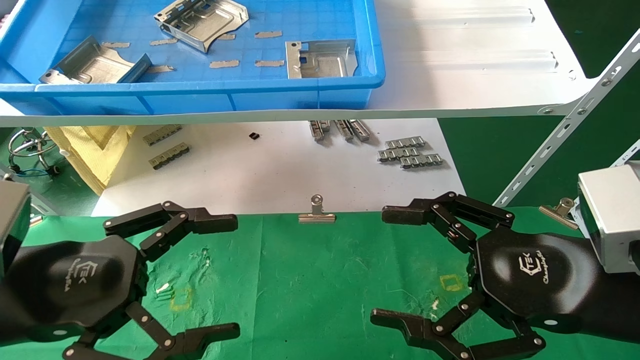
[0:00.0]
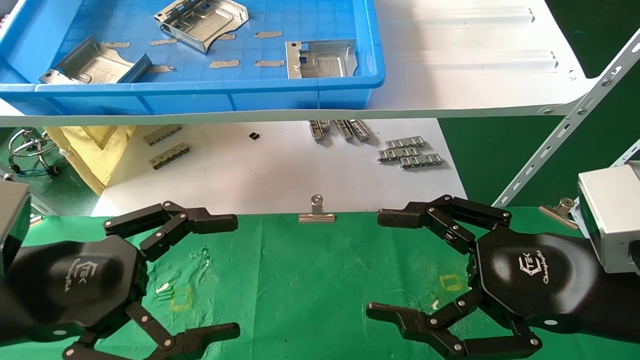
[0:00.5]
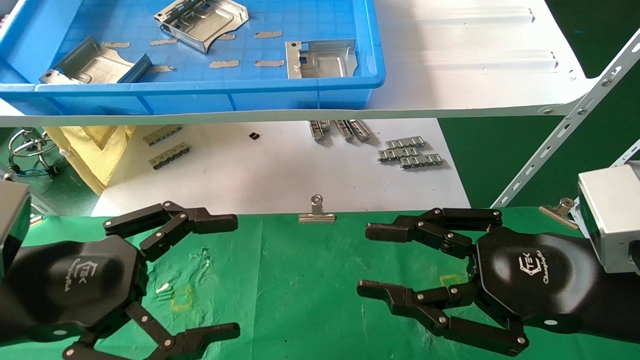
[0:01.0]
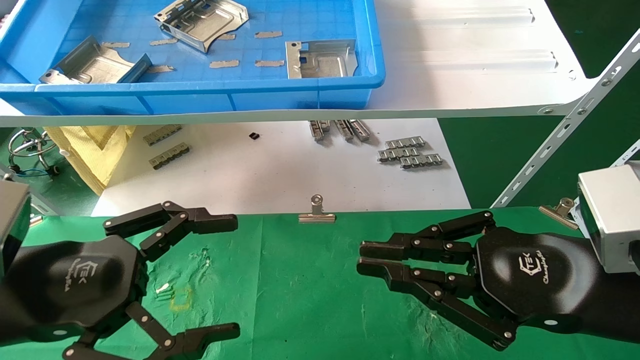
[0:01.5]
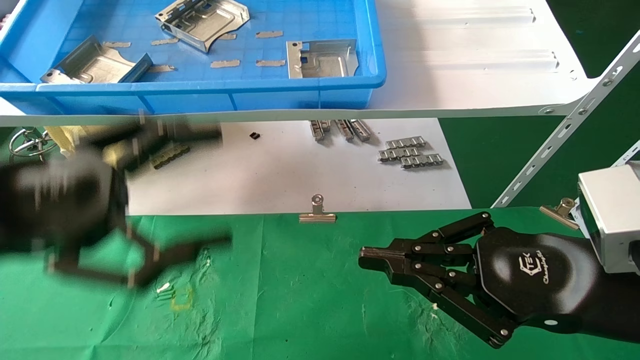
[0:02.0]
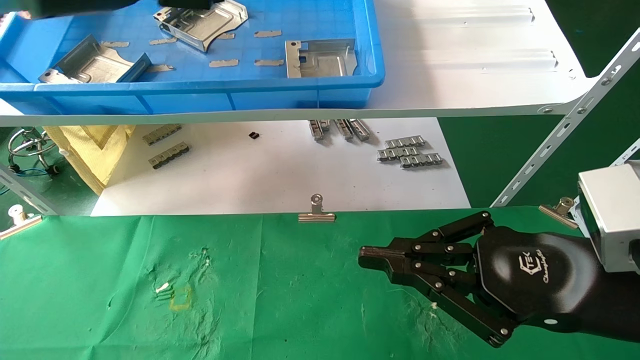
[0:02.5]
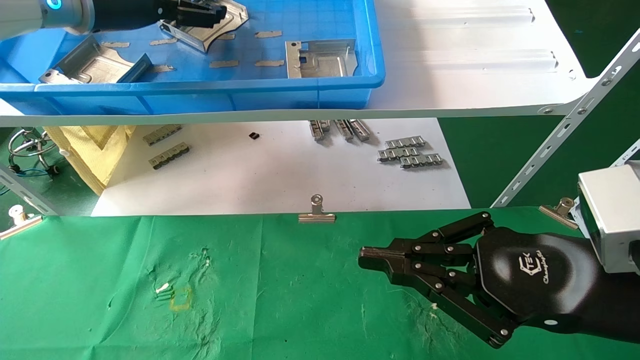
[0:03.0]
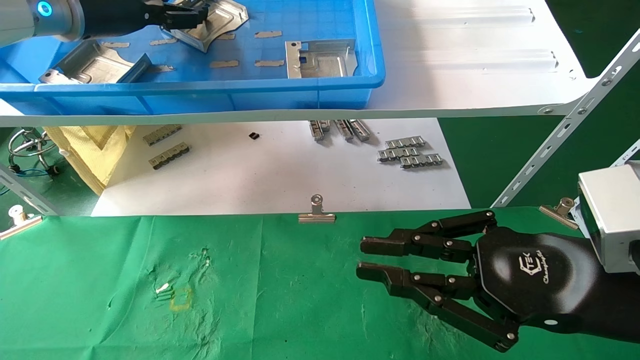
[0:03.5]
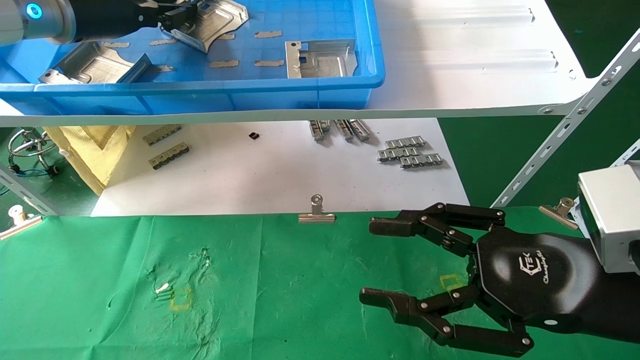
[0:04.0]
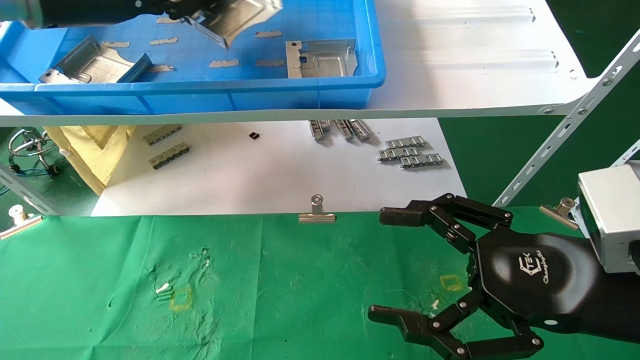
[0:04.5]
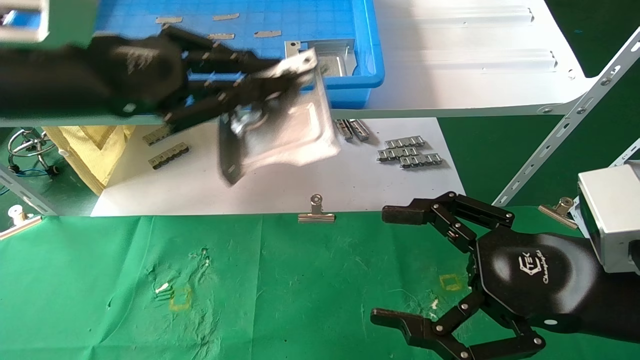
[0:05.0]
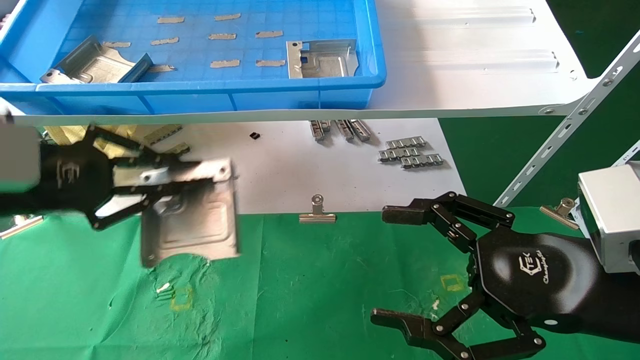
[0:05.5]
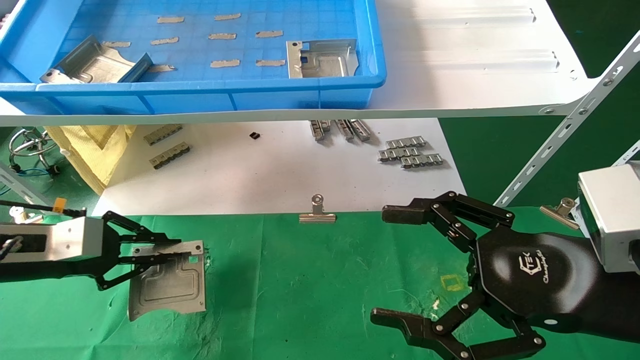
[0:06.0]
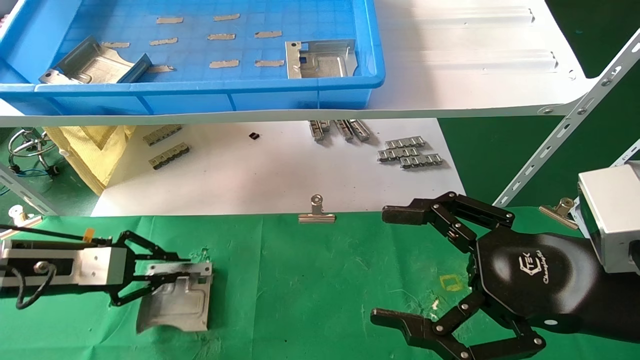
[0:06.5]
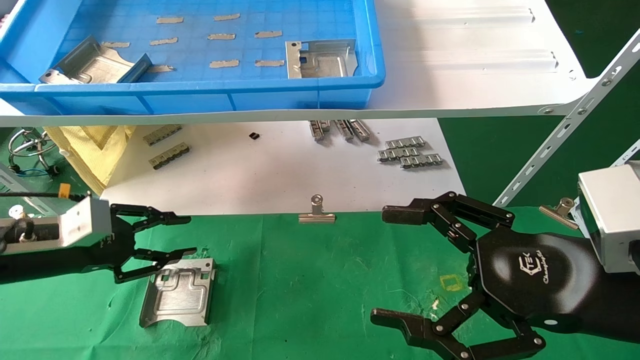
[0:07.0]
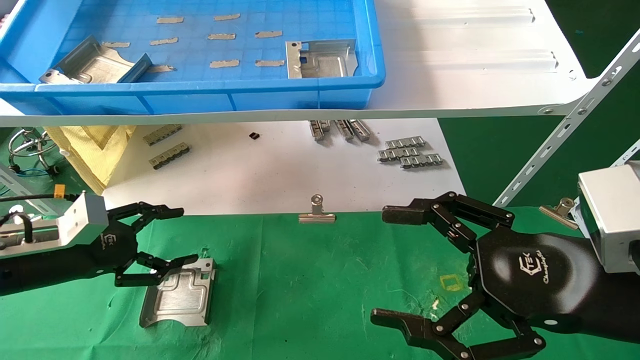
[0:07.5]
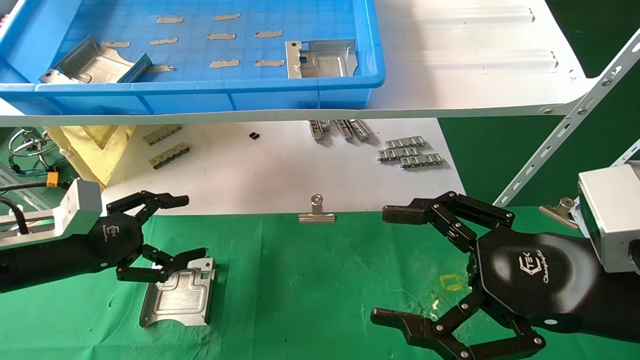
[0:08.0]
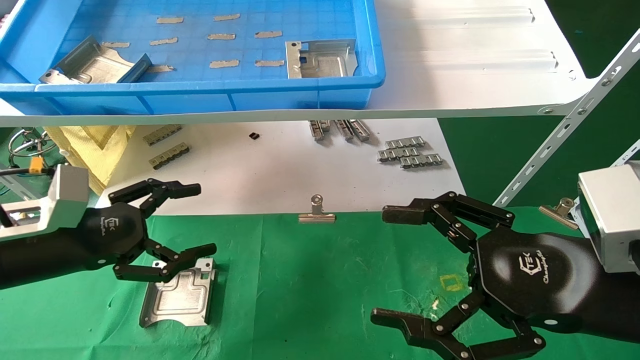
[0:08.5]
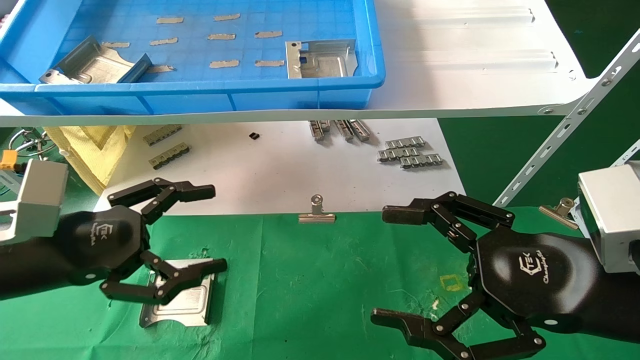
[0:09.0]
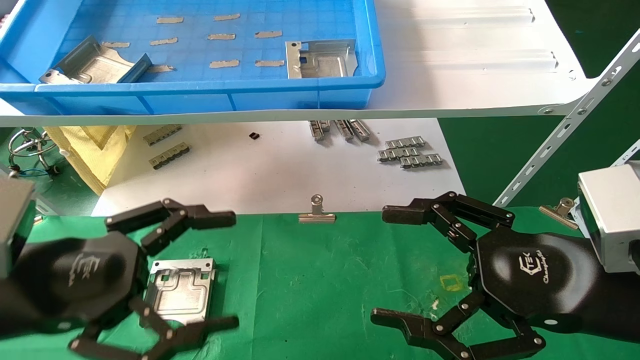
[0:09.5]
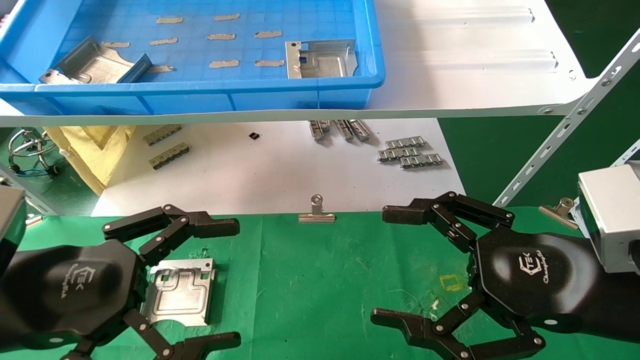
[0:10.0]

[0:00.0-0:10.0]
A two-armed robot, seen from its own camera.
Task of the whole recording: use the mechanical arm to pick up the parts and place them on the table.
Step, 0:02.0 to 0:04.0: Pick up the hard drive bracket from the feeding area.
Step, 0:04.5 to 0:06.5: Place the hard drive bracket into the box.
0:00.0 to 0:02.0: The left gripper goes approximately 10 cm upward. Meanwhile the right gripper closes.
0:02.0 to 0:04.0: The left gripper heads forward and upward, covering about 25 cm, and closes. Meanwhile the right gripper opens.
0:04.0 to 0:06.0: The right gripper opens up; the left gripper is displaced downward by approximately 25 cm.
0:06.0 to 0:08.0: The left gripper opens up.
0:08.0 to 0:10.0: The left gripper is displaced backward and to the right by some 15 cm.
